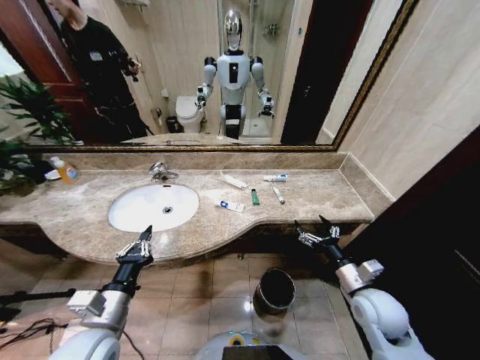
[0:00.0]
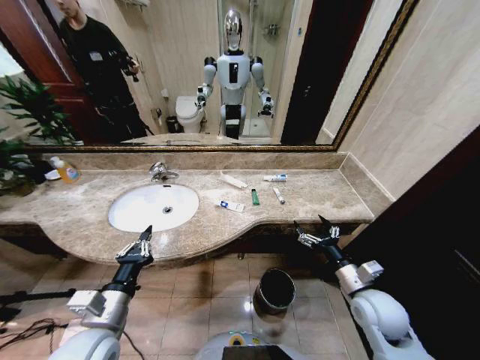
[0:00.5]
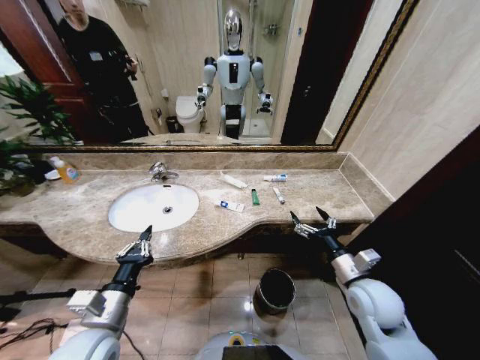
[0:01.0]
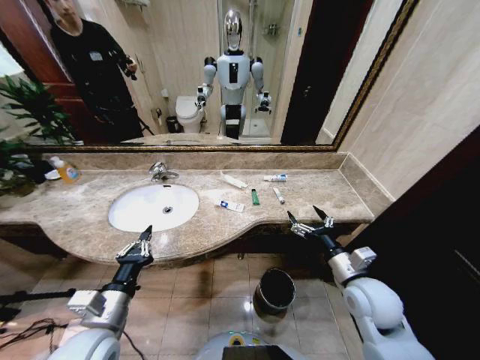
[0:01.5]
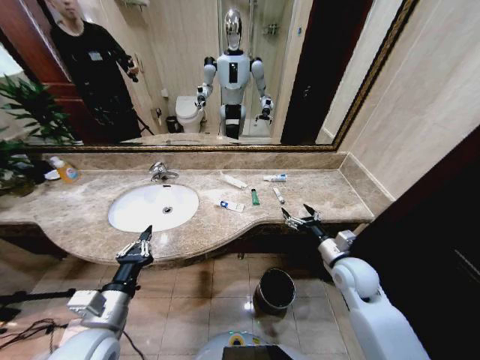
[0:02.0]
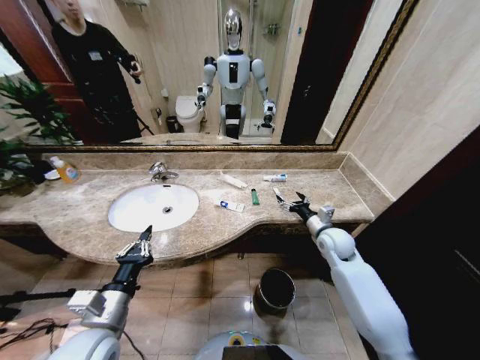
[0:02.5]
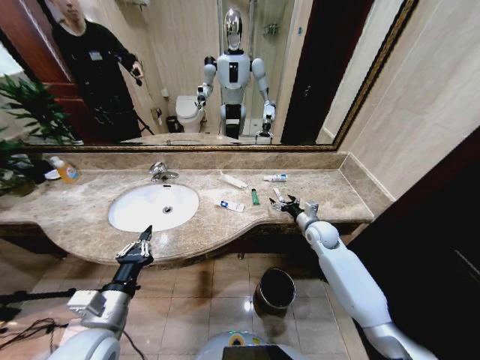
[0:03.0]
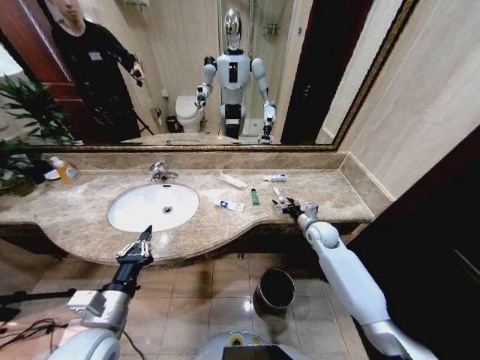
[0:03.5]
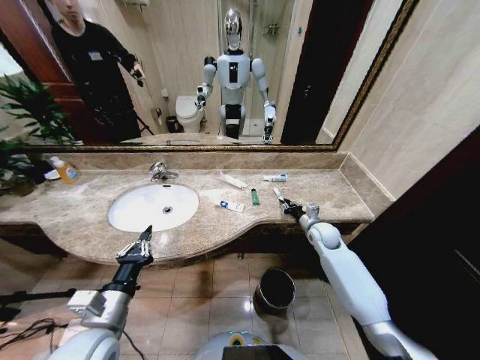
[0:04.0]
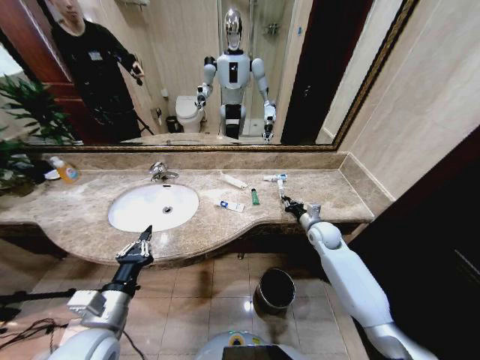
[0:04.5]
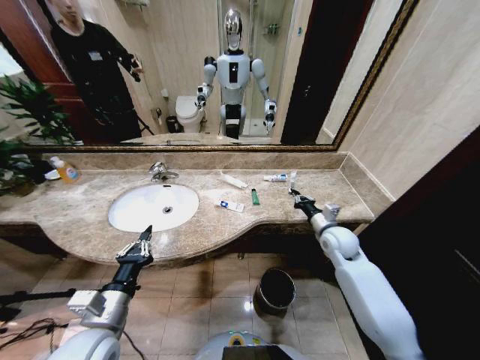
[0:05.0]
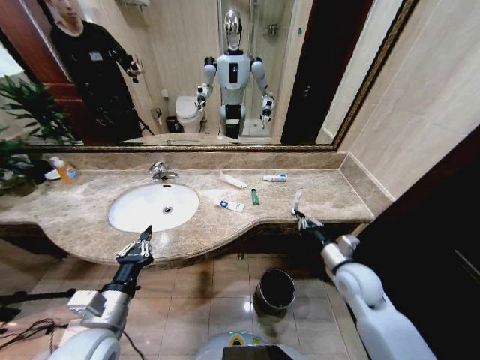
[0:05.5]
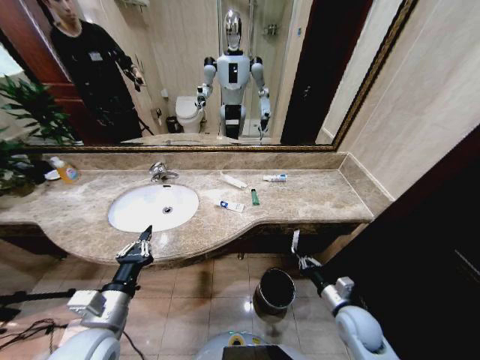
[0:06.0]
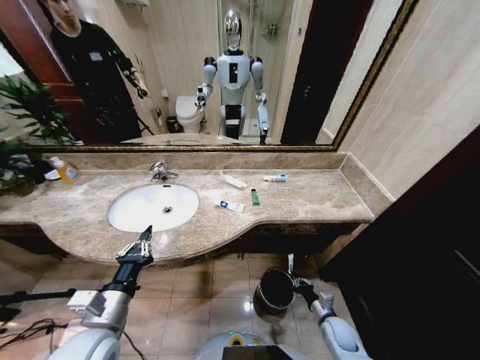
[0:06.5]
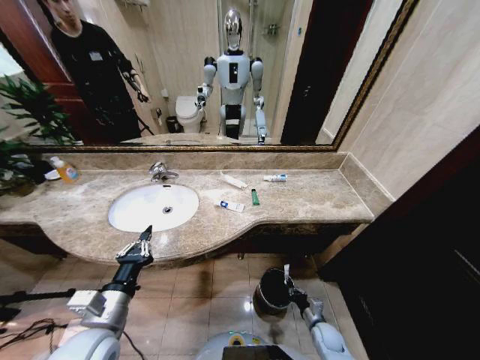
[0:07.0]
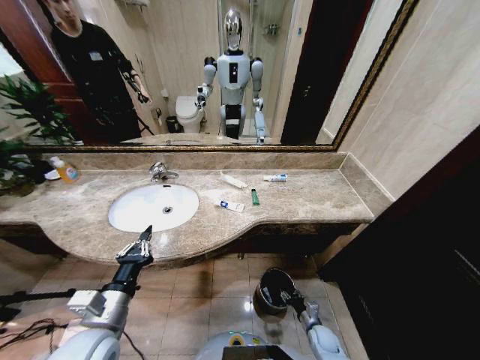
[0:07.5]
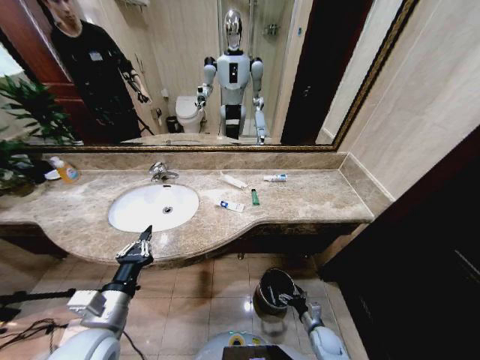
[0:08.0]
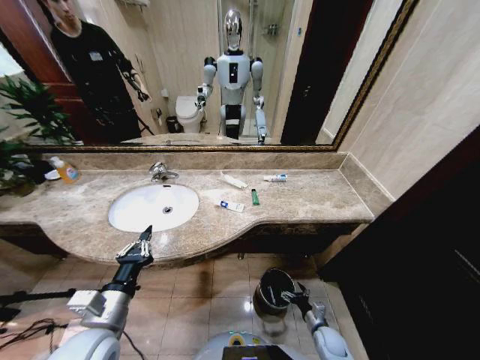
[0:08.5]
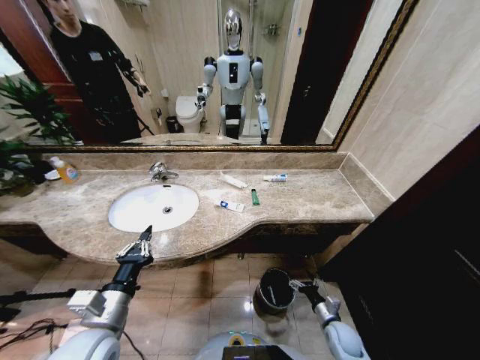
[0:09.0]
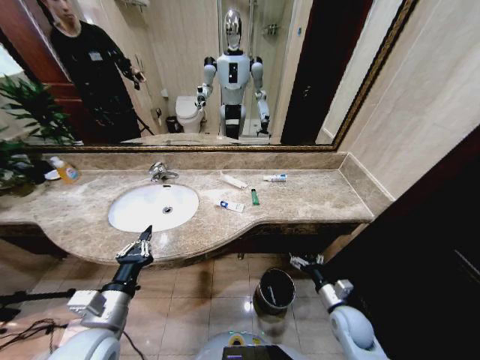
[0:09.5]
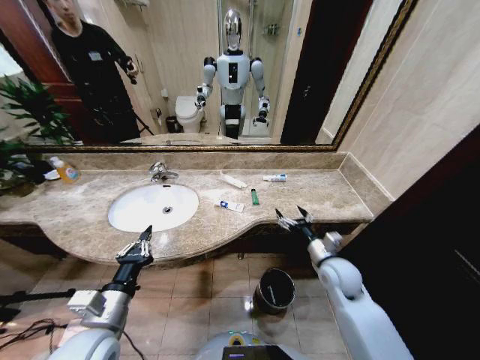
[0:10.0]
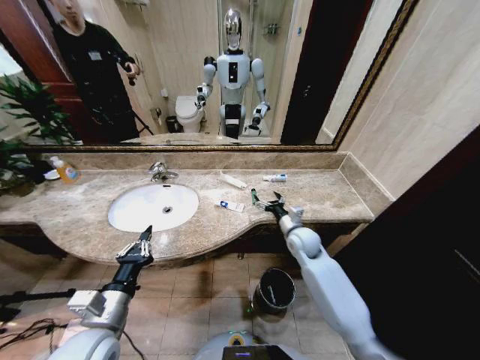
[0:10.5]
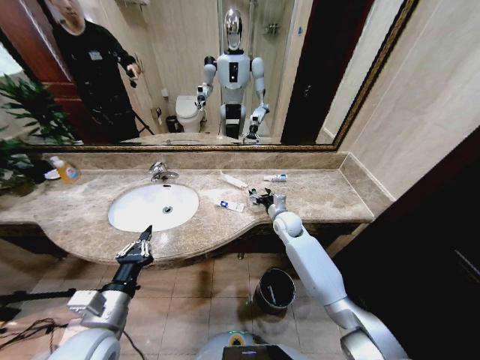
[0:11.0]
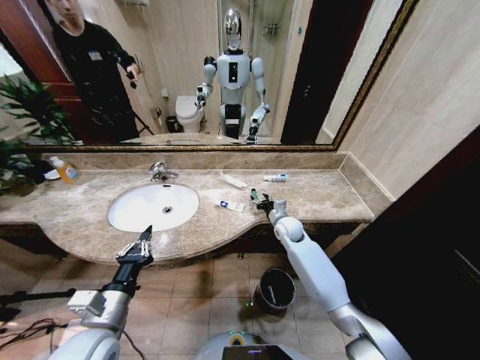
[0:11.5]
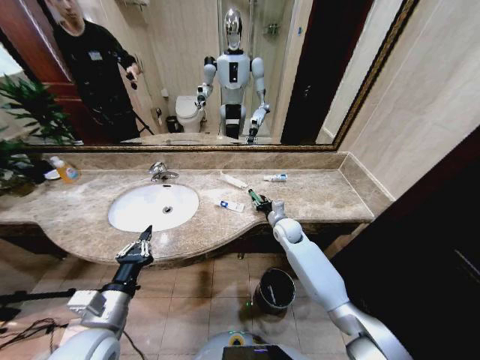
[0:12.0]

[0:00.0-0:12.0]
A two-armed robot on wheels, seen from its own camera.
Task of the whole recording: Pick up the trash from the sink and place it in the trash bin.
2.0 to 4.0 s: The right gripper moves forward, about 15 cm, and closes its fingers.
4.0 to 6.0 s: The right gripper is displaced backward by roughly 25 cm.
6.0 to 8.0 s: The right gripper moves downward, about 20 cm, and opens its fingers.
8.0 to 10.0 s: The right gripper shifts roughly 30 cm upward.
10.0 to 12.0 s: The right gripper travels forward and to the left by approximately 20 cm, and closes up.

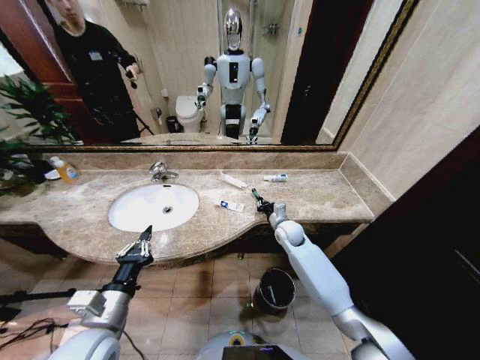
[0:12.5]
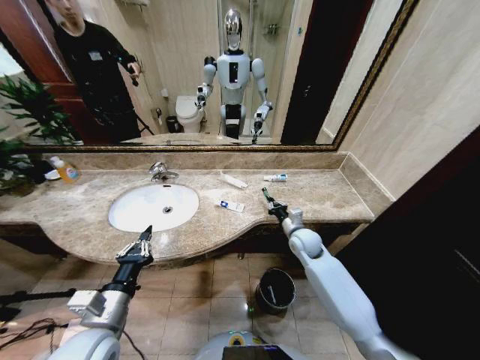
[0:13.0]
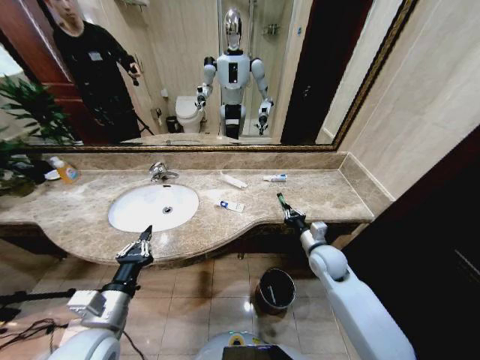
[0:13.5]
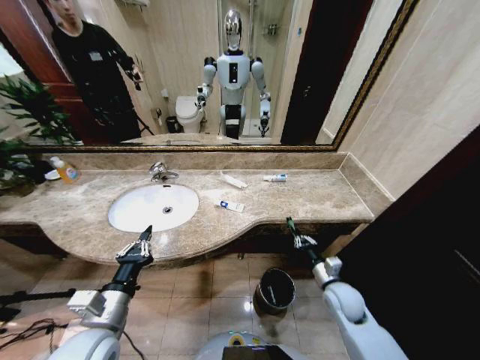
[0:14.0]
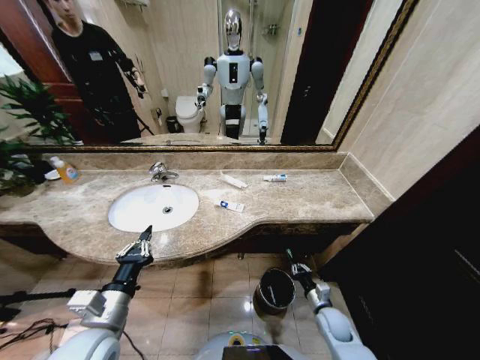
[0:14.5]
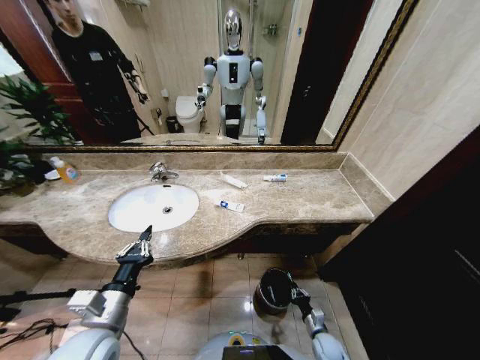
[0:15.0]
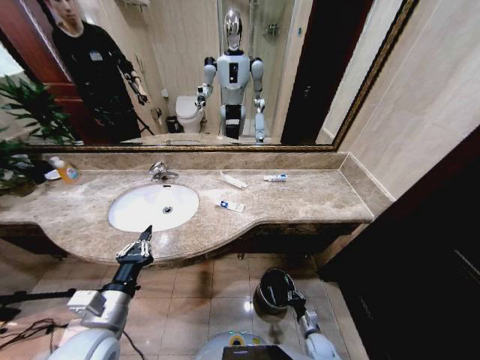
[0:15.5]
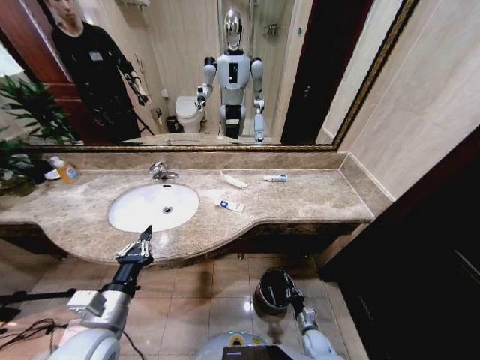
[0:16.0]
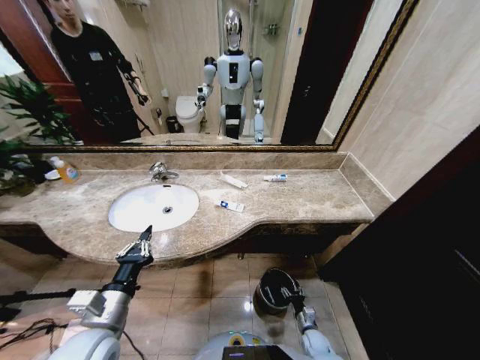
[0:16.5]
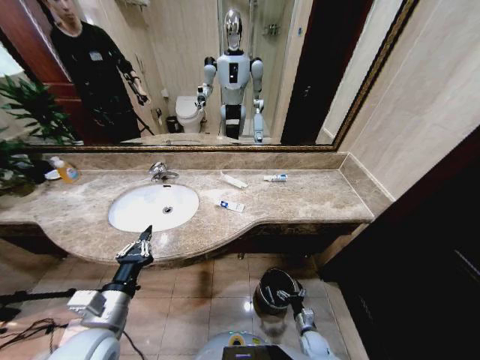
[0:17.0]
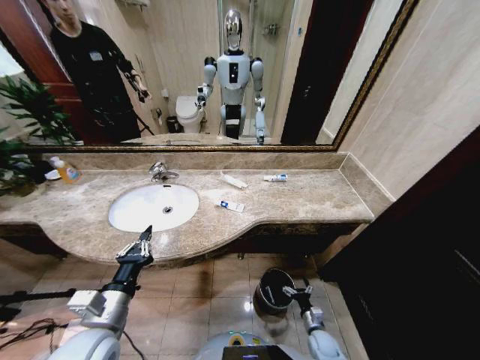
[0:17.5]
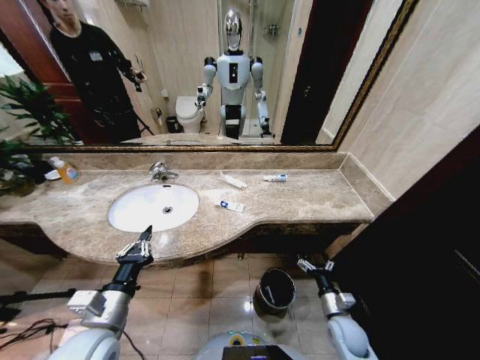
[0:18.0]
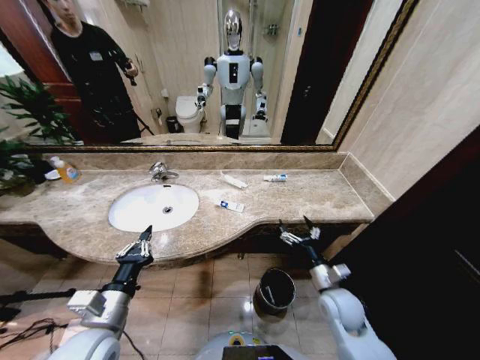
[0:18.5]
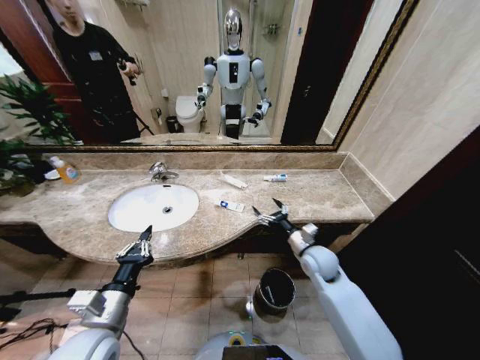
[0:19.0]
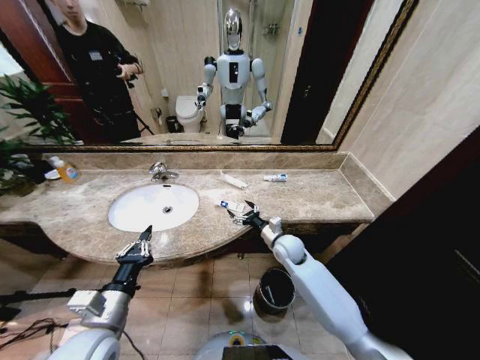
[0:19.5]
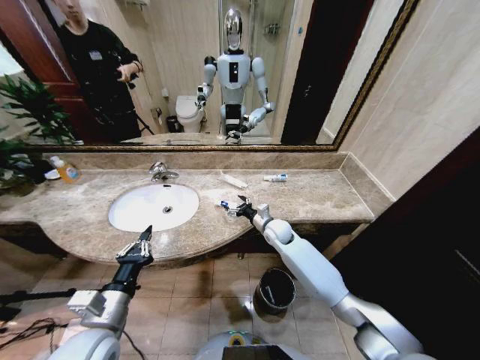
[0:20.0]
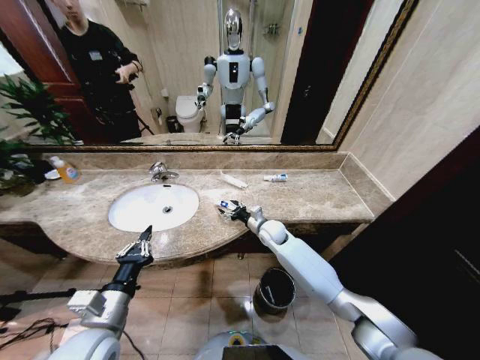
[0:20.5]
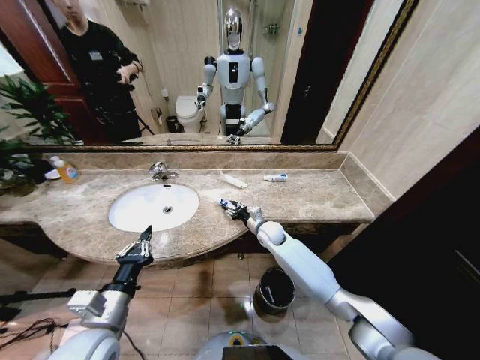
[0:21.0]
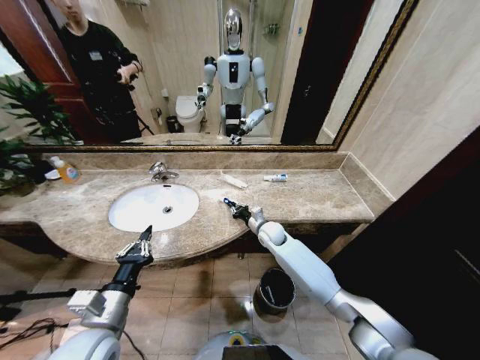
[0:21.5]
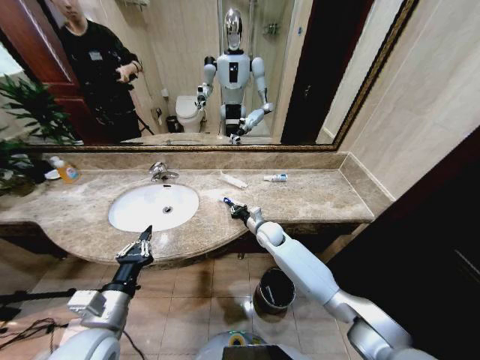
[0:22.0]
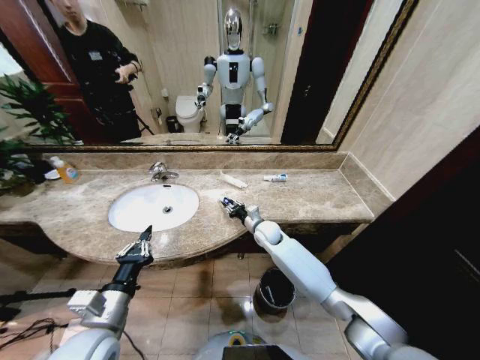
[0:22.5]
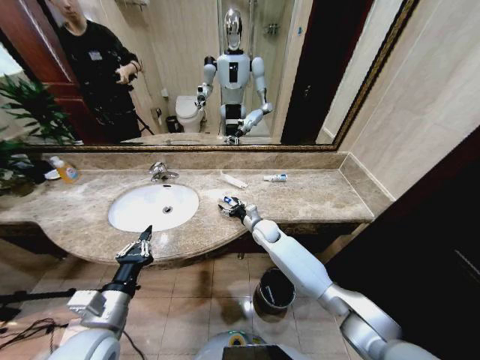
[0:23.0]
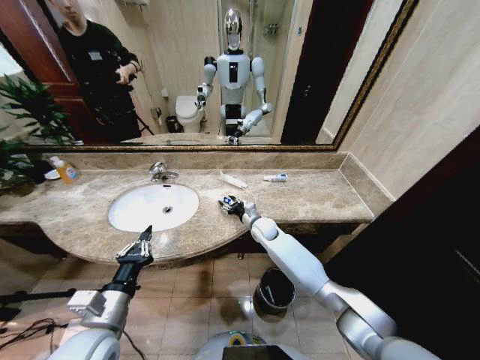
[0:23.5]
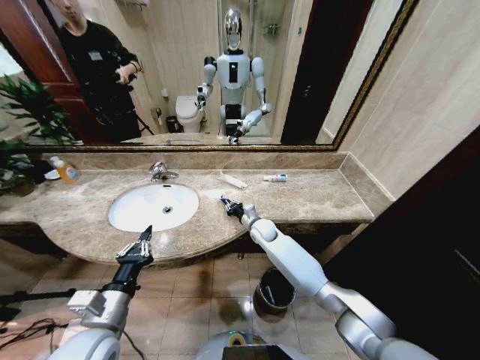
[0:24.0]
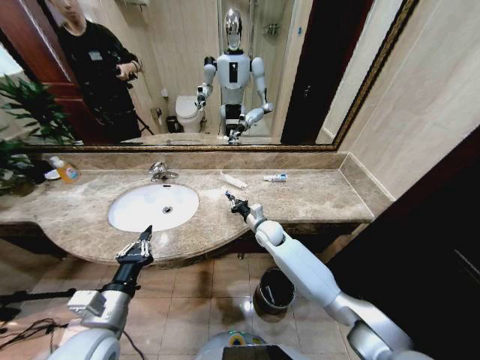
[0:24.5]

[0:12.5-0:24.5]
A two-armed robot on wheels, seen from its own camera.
Task of the whole recording: Pick up the trash from the sink and place it in the trash bin.
12.5 to 14.5 s: The right gripper travels backward, downward and to the right by approximately 30 cm.
14.5 to 16.5 s: The right gripper is displaced downward by about 15 cm, and opens its fingers.
16.5 to 18.5 s: The right gripper shifts about 30 cm upward, and opens.
18.5 to 20.5 s: The right gripper moves forward and to the left, approximately 25 cm.
20.5 to 22.5 s: The right gripper closes.
22.5 to 24.5 s: The right gripper opens and closes again.

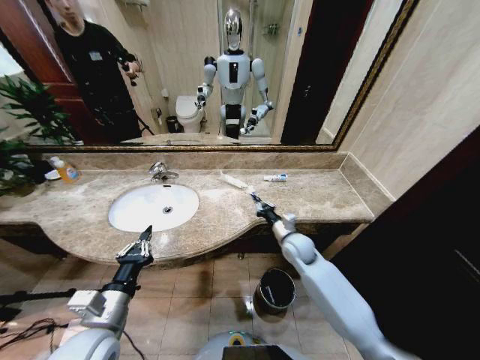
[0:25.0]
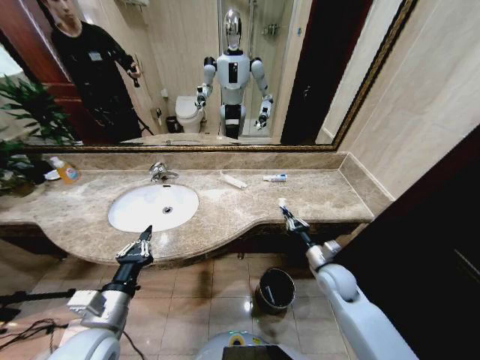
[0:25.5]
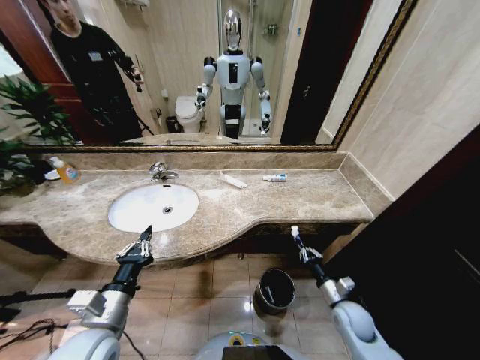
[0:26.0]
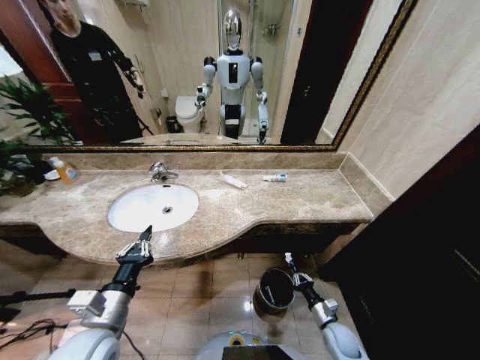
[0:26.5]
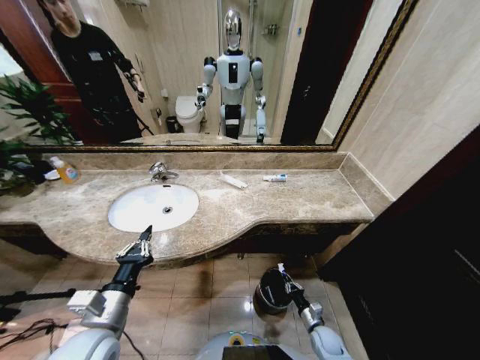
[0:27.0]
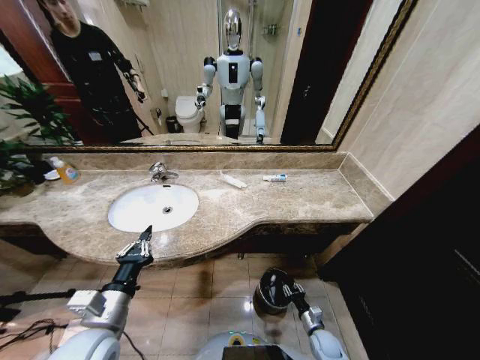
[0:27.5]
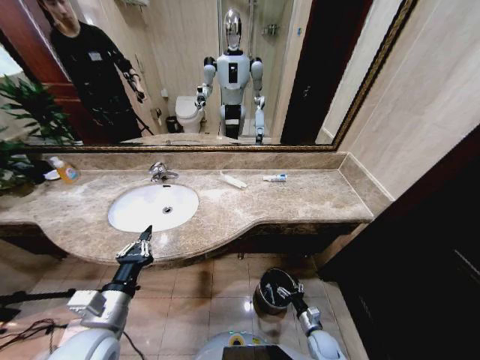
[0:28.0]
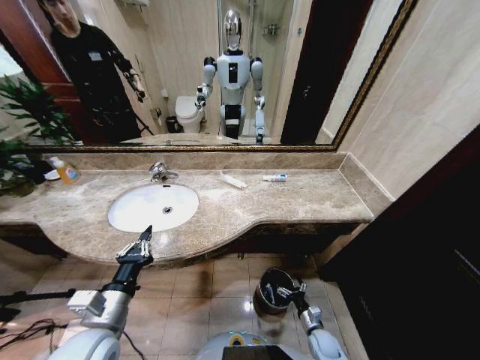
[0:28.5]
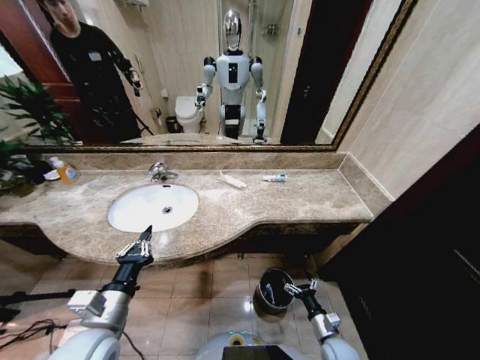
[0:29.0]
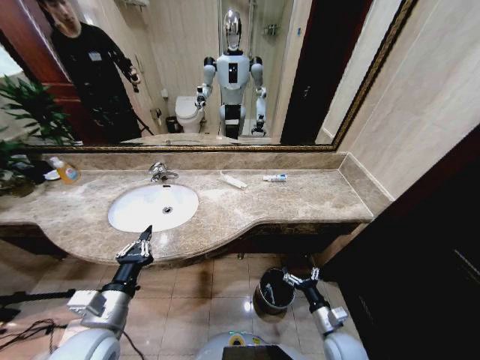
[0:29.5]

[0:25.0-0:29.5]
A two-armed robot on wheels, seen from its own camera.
Task of the whole recording: Pick up the trash from the sink and place it in the trash bin.
25.0 to 27.0 s: The right gripper is displaced downward, backward and to the right by some 35 cm.
27.0 to 29.5 s: The right gripper goes approximately 15 cm upward, and opens up.
